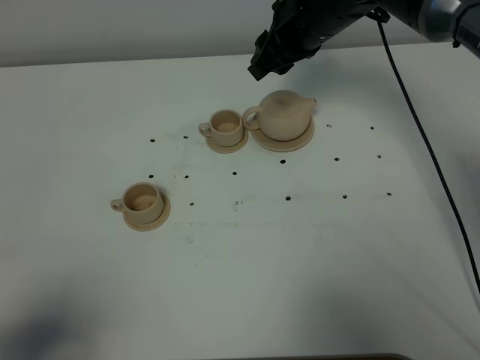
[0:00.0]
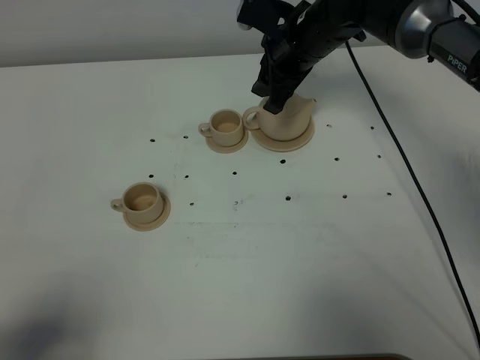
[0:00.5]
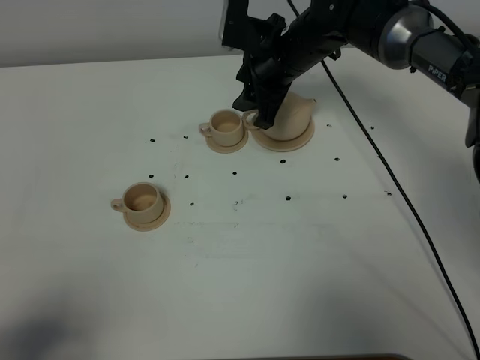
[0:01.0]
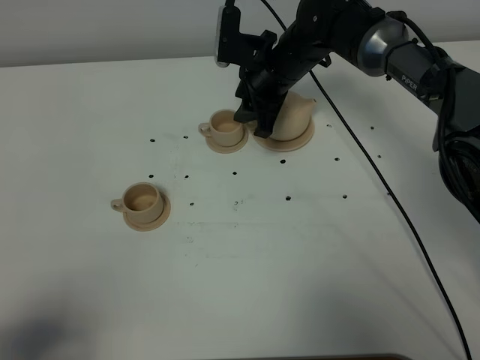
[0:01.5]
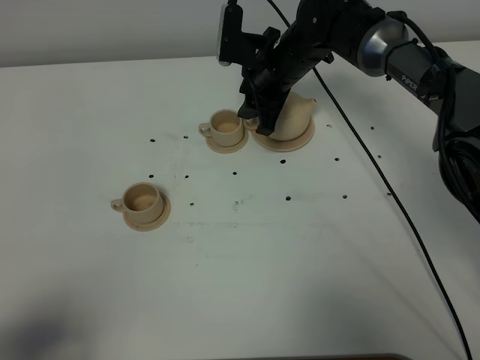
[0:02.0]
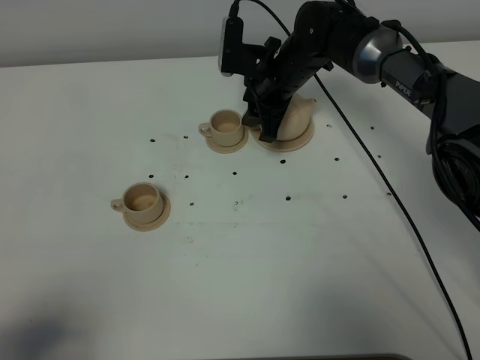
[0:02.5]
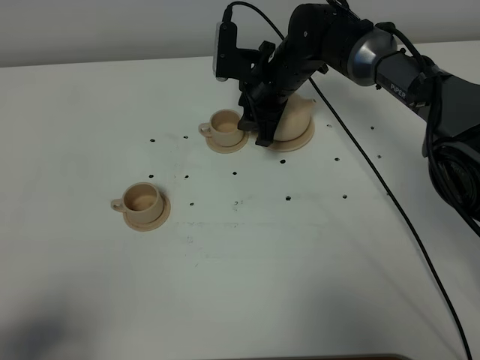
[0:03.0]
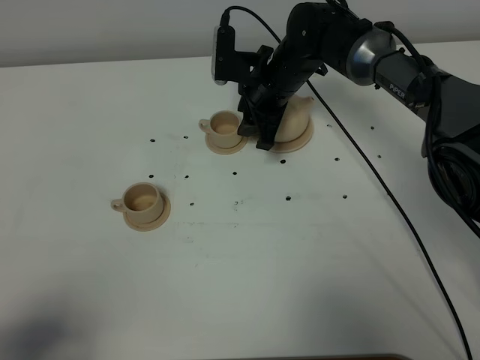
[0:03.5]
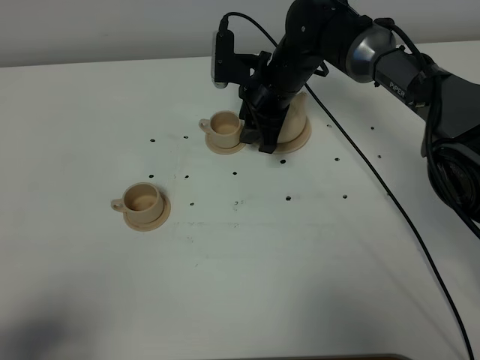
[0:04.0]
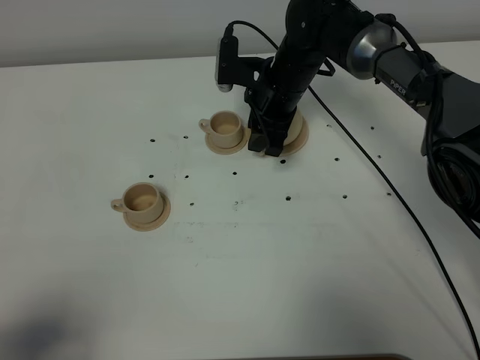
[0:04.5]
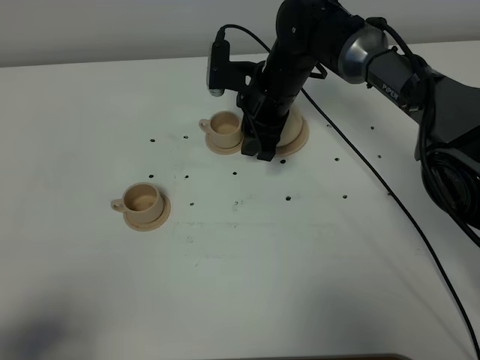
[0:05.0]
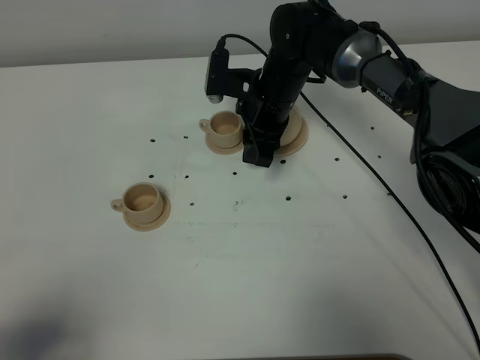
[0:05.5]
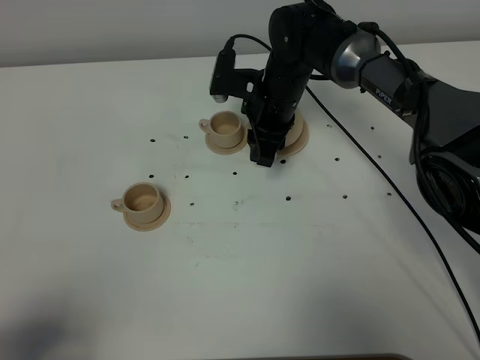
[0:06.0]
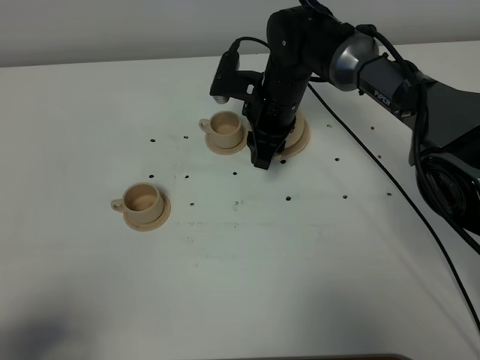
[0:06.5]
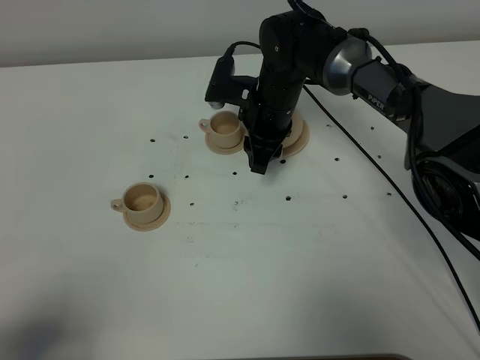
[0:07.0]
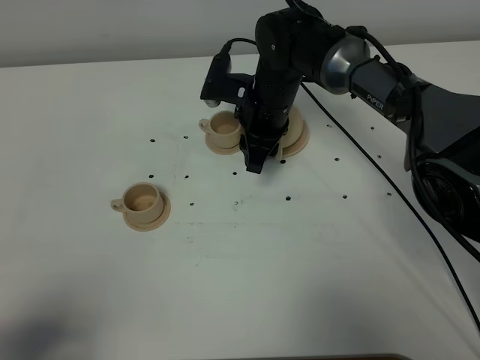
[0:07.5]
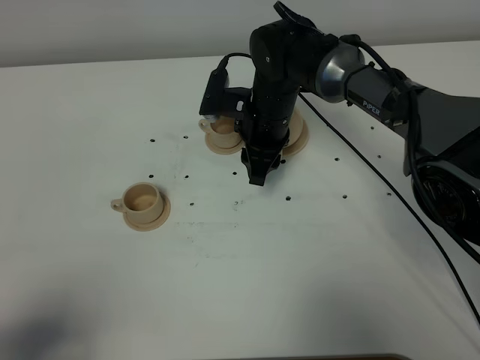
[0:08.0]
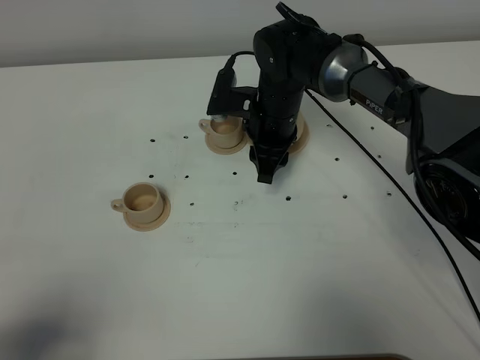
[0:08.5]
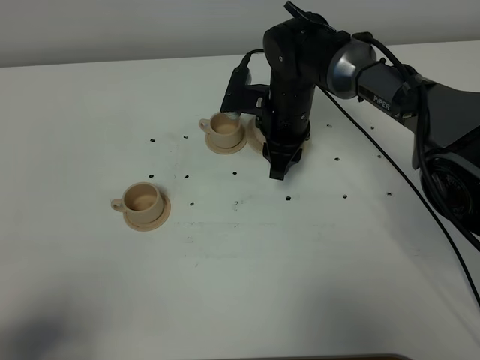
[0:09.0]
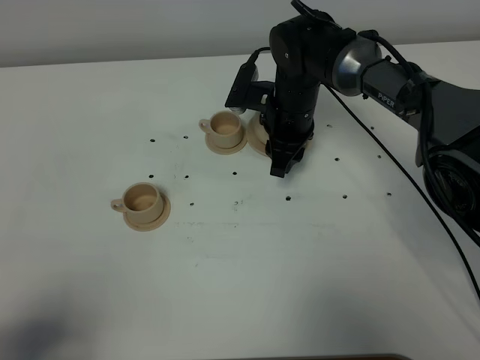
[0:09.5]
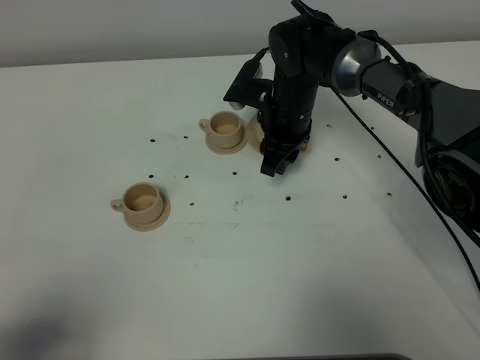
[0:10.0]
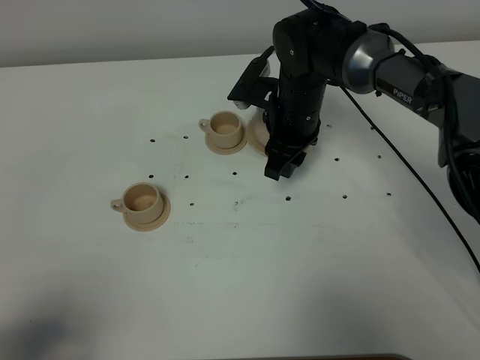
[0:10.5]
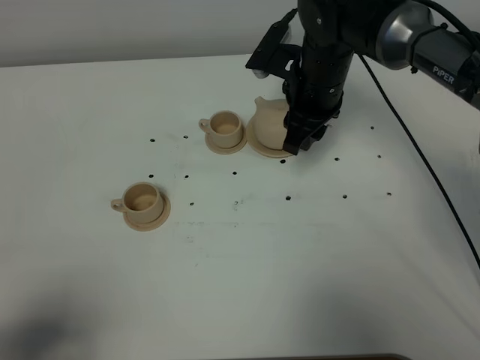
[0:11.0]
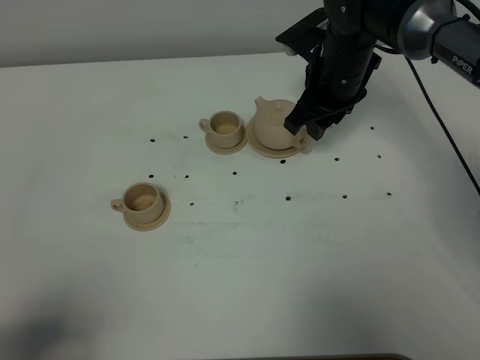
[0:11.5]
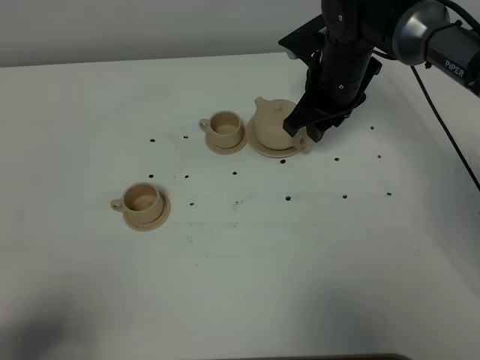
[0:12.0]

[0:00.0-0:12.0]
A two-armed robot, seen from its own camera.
Task of the whole recording: grasp the brown teapot and pour the tea into the two brown teacups one by one, put the brown teapot back in its original place.
0:00.0 to 0:02.0: The right gripper is displaced downward by approximately 10 cm.
0:02.0 to 0:04.0: There are only small adjustments of the grippers.
0:04.0 to 0:08.0: There are only small adjustments of the grippers.
0:08.0 to 0:10.0: The grippers stay close to where they were, moving slightly.
0:10.0 to 0:12.0: The right gripper shifts about 5 cm to the right.

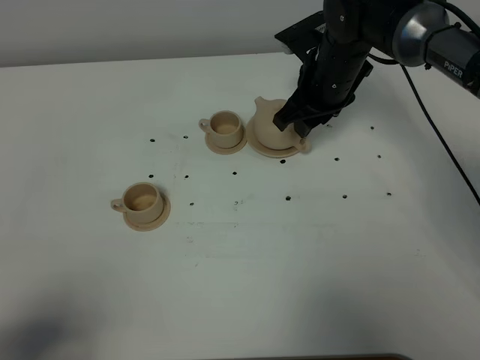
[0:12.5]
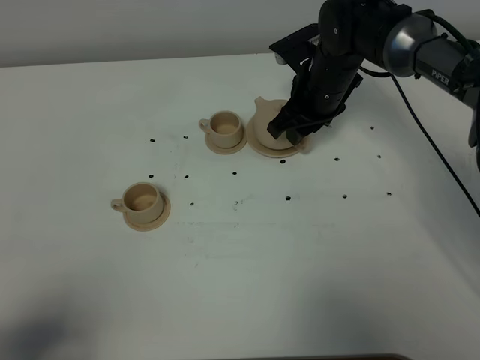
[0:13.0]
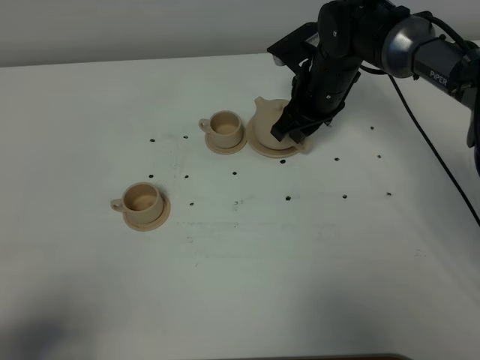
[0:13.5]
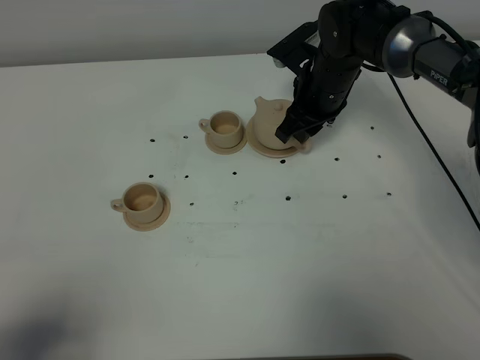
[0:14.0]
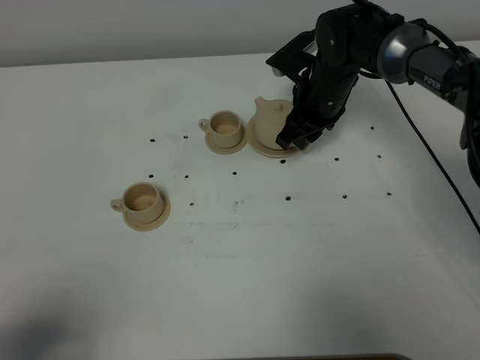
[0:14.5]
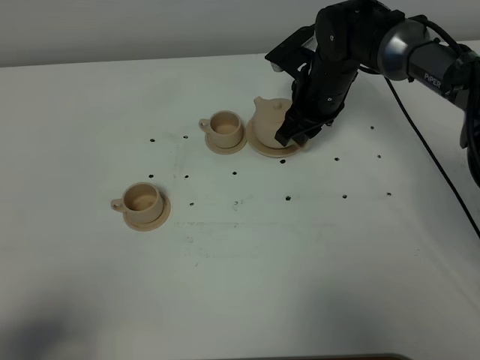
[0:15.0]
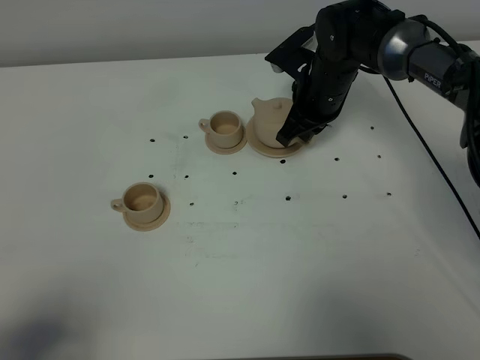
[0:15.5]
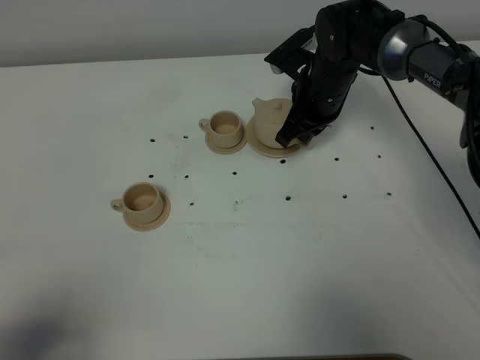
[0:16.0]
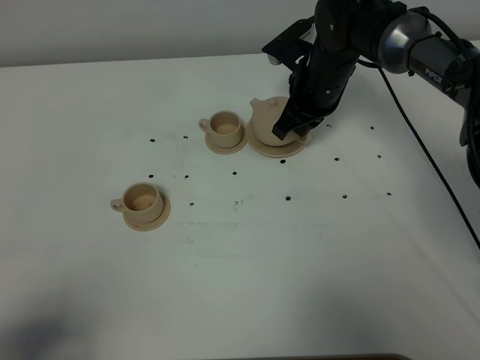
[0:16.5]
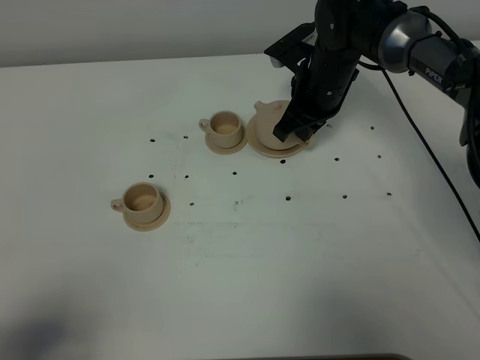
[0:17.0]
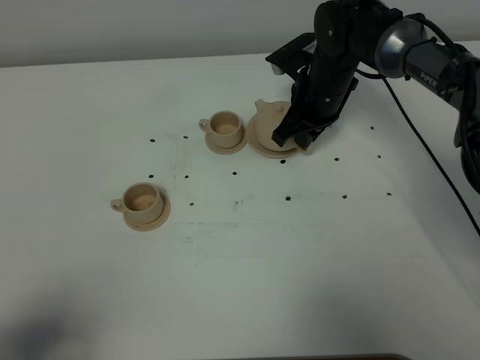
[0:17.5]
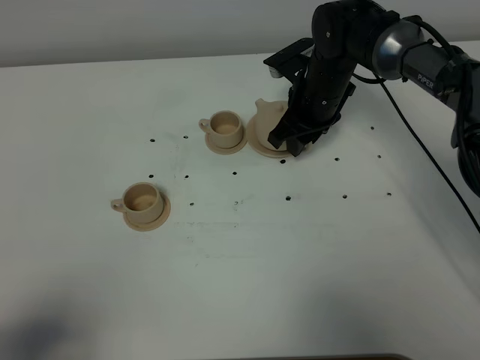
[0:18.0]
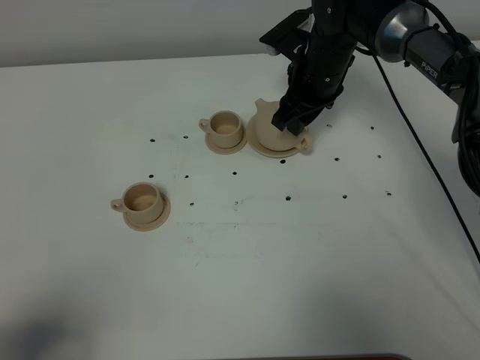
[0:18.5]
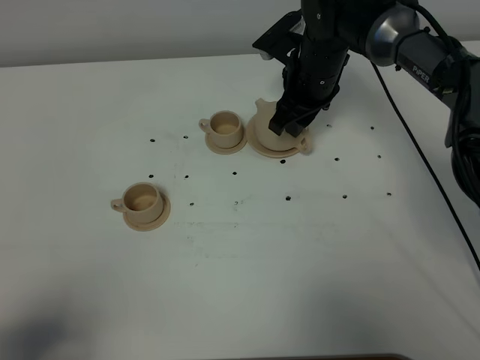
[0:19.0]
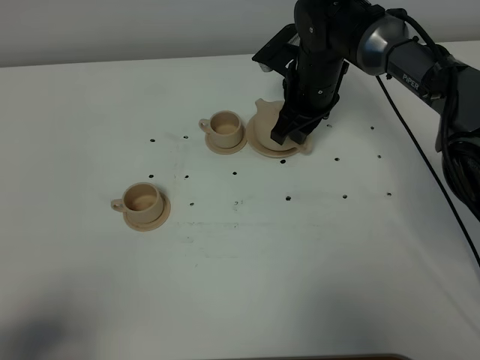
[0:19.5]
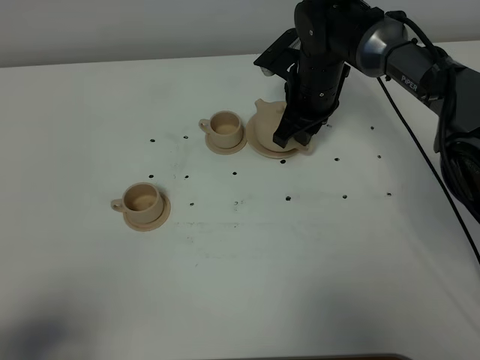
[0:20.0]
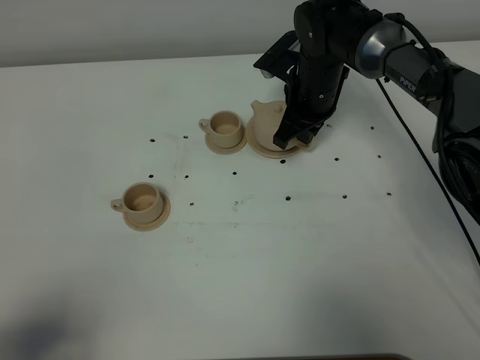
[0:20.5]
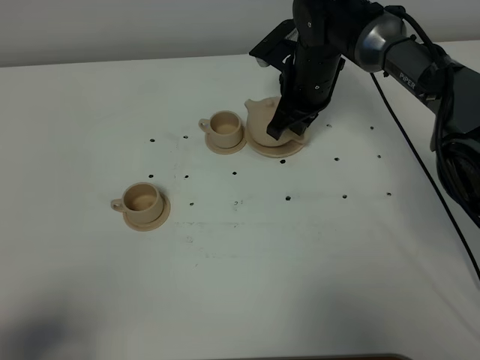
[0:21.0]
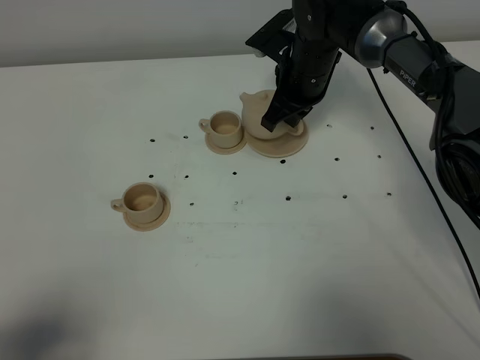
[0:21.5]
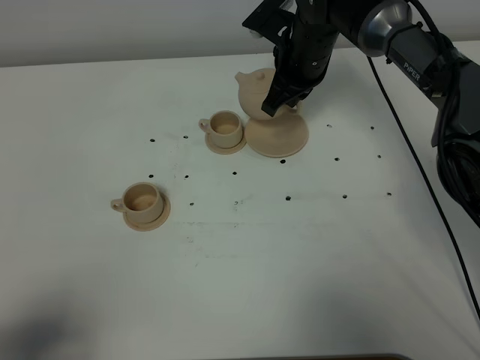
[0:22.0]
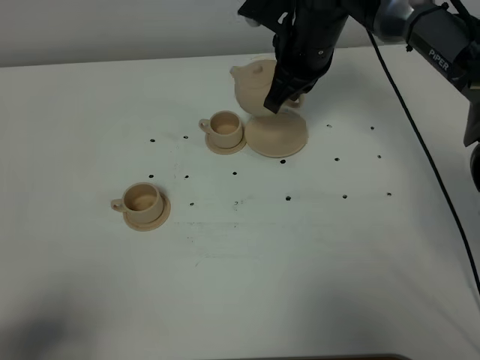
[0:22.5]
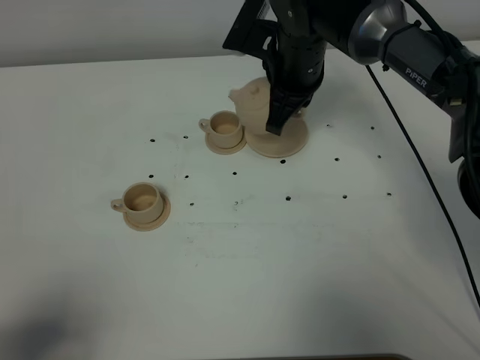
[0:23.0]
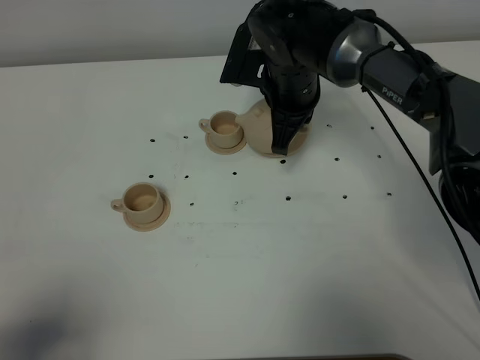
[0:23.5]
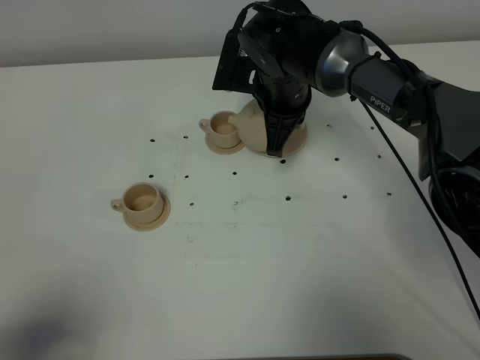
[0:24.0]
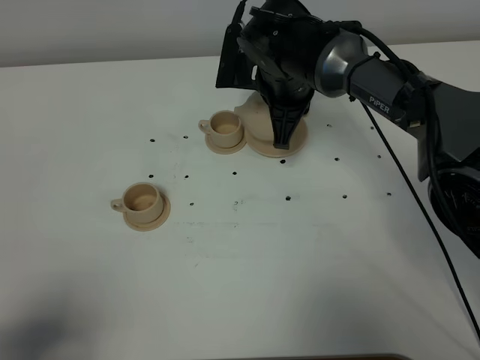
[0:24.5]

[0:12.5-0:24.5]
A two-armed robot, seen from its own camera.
Task of the whole recording: grasp the brown teapot and pour the tea into the two brown teacups one by one, put the brown teapot back in its original place.
Step, 0:12.5 to 0:21.5: Pick up the teapot with the right gripper.
0:12.5 to 0:14.5: There are only small adjustments of the grippers.
0:14.5 to 0:16.5: The right gripper closes up.
0:16.5 to 0:18.5: The right gripper opens up.
0:18.5 to 0:20.5: The right gripper closes its fingers.
0:20.5 to 0:22.5: The right gripper shifts some 10 cm upward.
0:22.5 to 0:24.5: The right gripper moves some 5 cm.

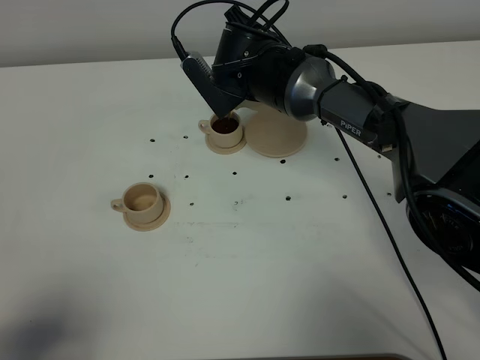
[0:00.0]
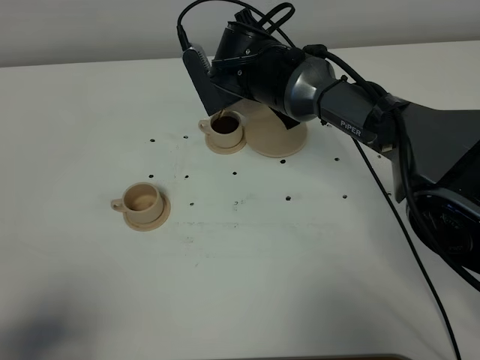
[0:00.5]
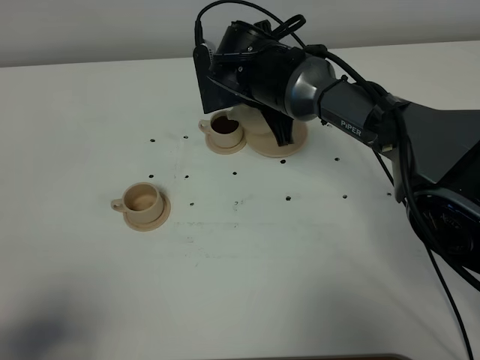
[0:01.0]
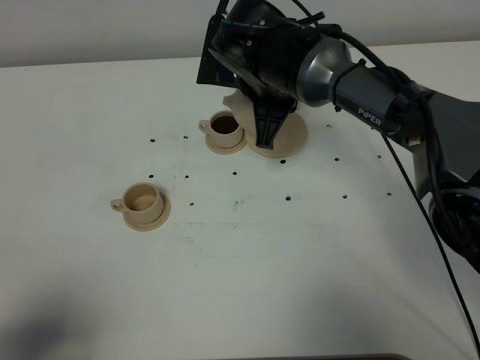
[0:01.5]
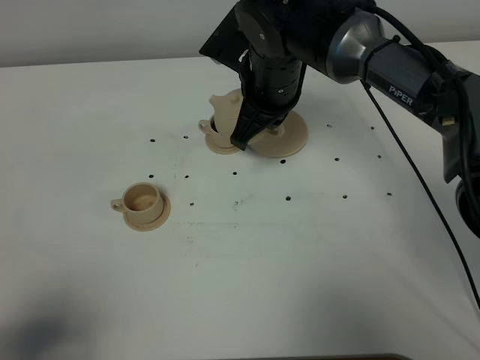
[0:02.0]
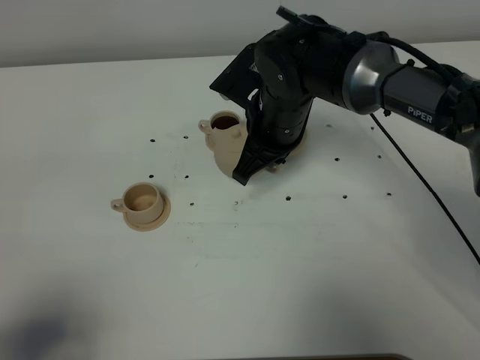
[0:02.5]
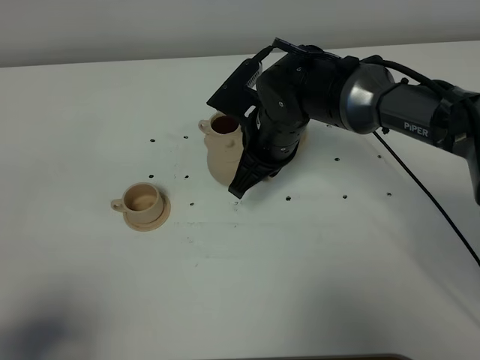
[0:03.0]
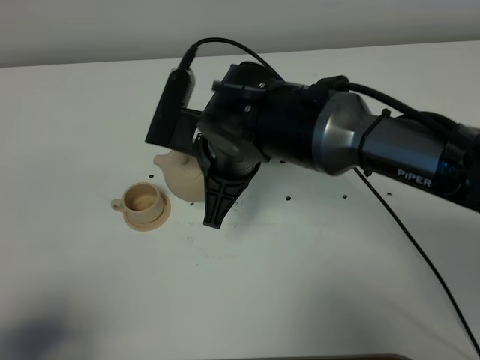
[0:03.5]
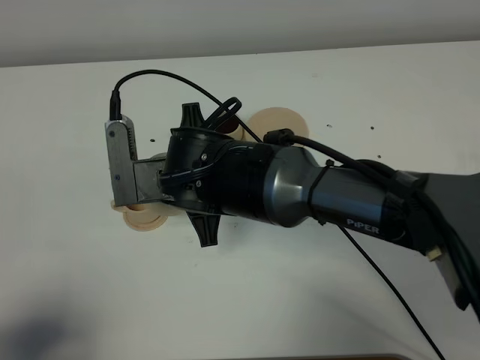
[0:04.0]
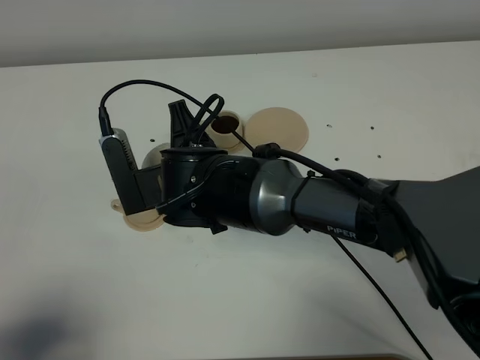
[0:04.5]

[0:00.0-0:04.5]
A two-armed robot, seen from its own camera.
Task of the whole recording: grasp the brown teapot and pour the tea into the two brown teacups one by one, put the brown teapot back in its original place.
0:02.0 to 0:04.5: The right gripper travels backward, to the left and downward by some 15 cm.
